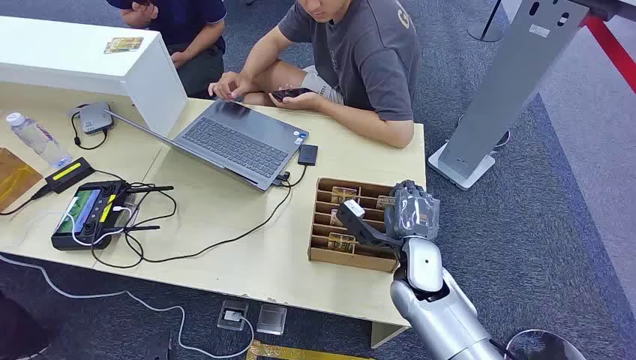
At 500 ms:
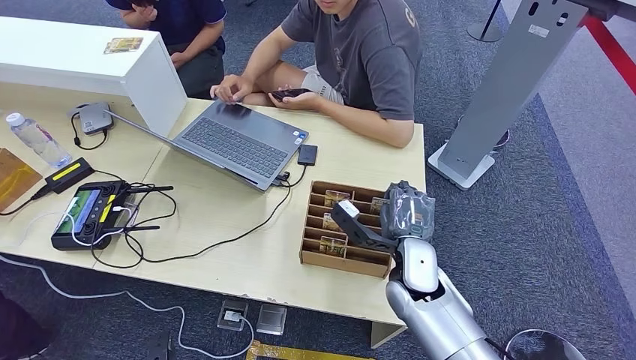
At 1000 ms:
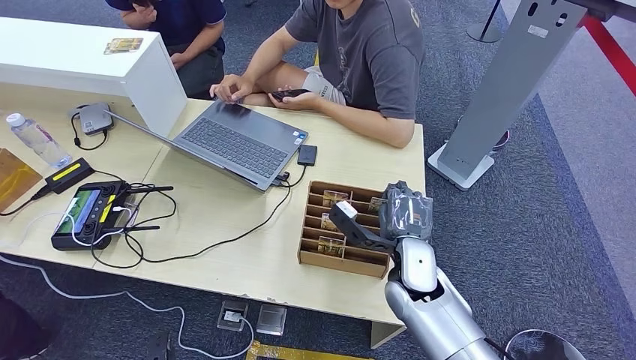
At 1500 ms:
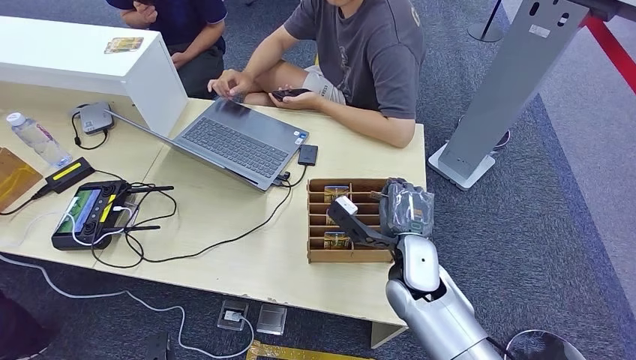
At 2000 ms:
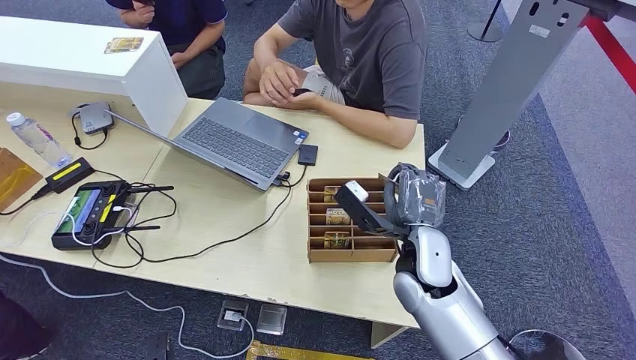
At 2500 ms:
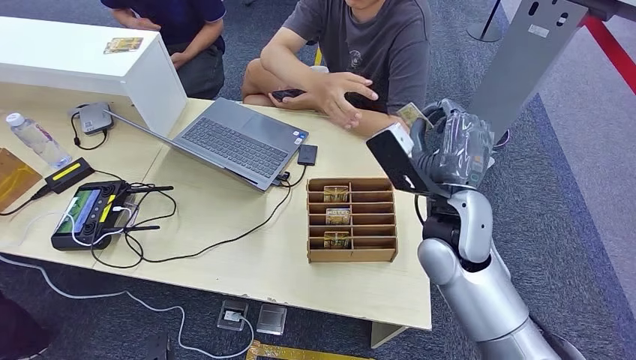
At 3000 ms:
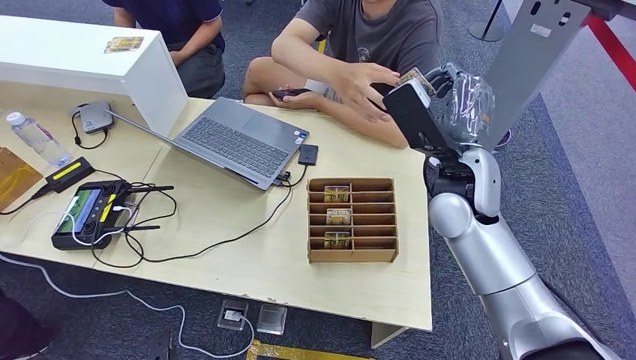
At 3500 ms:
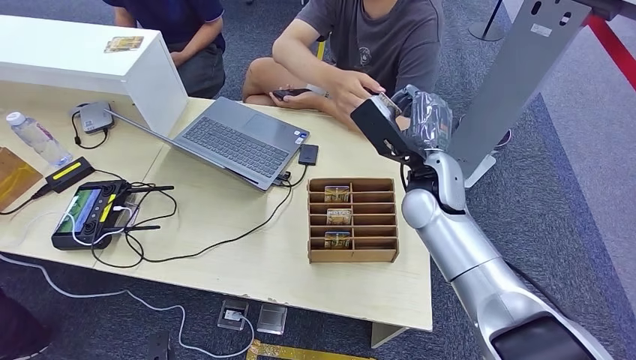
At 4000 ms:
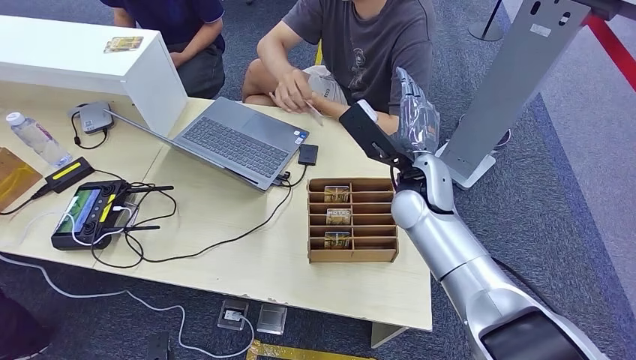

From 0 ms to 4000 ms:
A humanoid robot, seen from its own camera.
Step, from 0 ms to 1500 ms: Pick up the key card from the card box.
Step, from 3000 ms to 4000 ms: Hand the key card to the target.
From 2000 ms to 4000 ms: The right hand travels forward and upward by about 10 cm.
